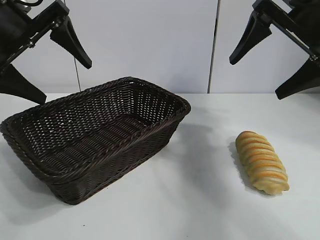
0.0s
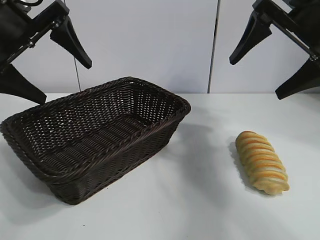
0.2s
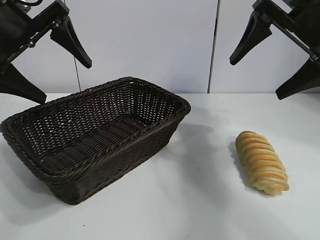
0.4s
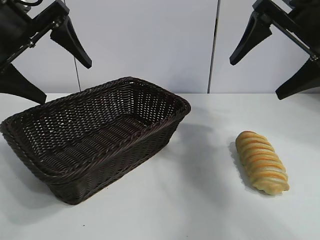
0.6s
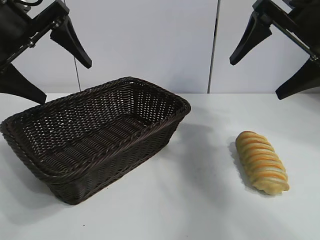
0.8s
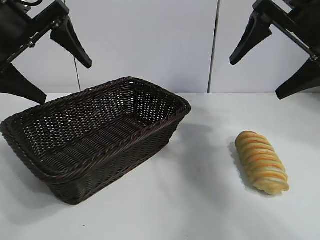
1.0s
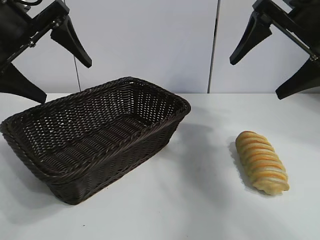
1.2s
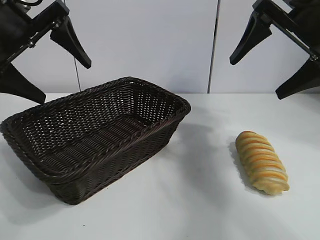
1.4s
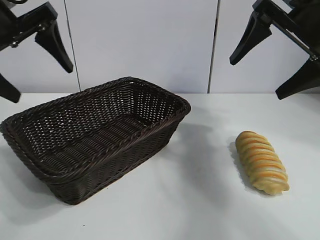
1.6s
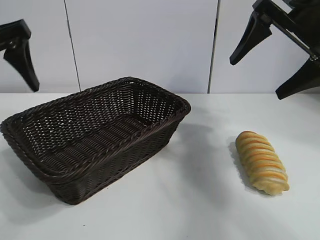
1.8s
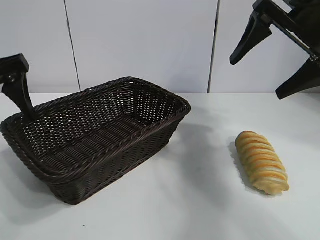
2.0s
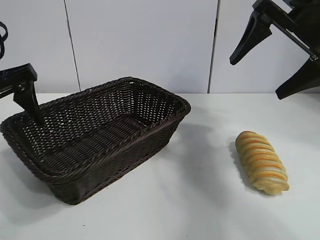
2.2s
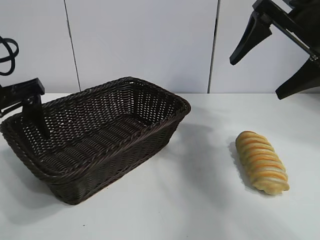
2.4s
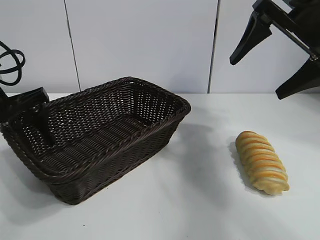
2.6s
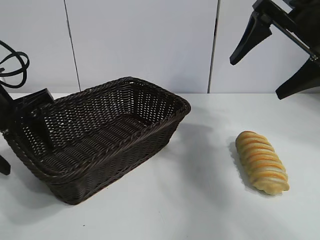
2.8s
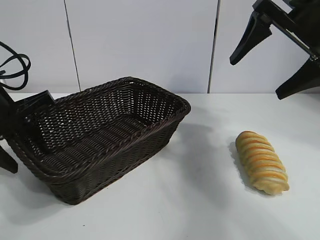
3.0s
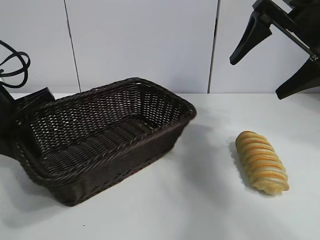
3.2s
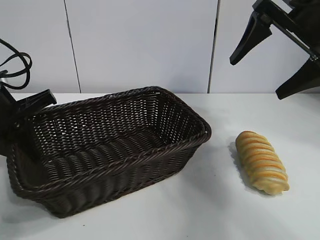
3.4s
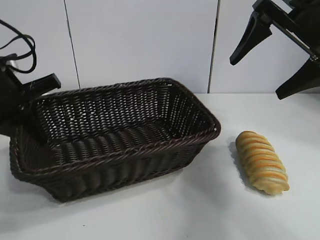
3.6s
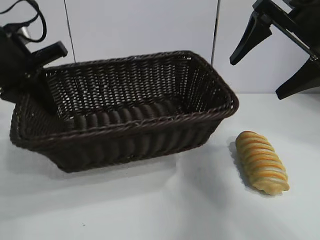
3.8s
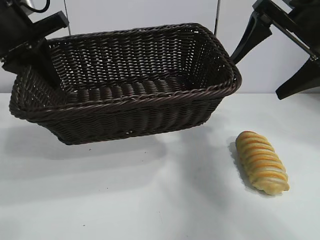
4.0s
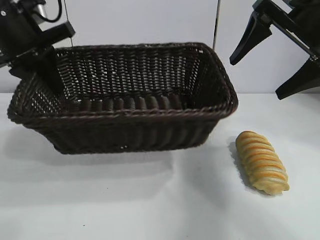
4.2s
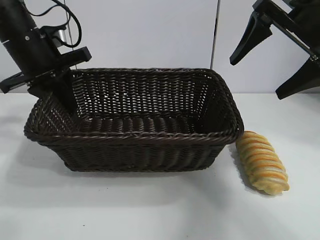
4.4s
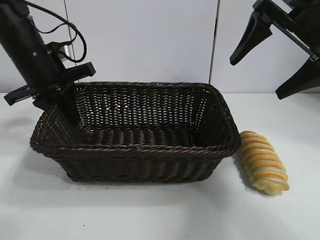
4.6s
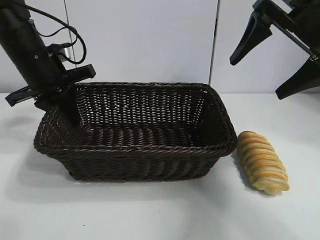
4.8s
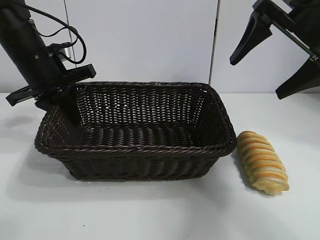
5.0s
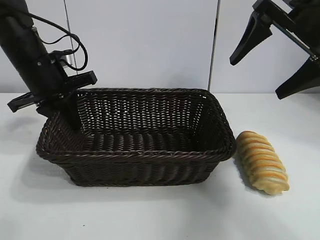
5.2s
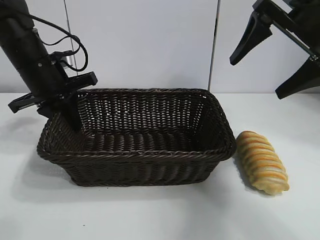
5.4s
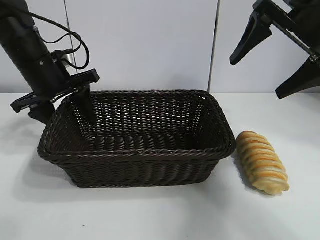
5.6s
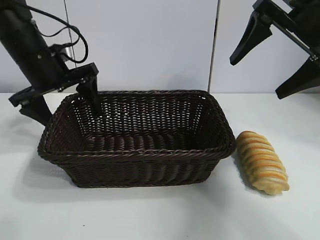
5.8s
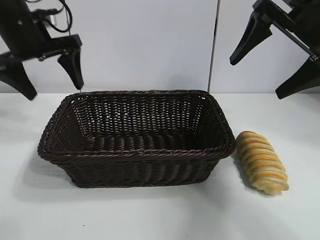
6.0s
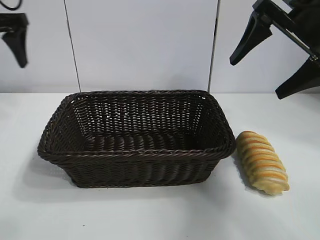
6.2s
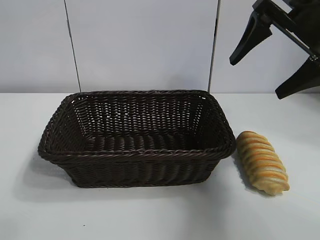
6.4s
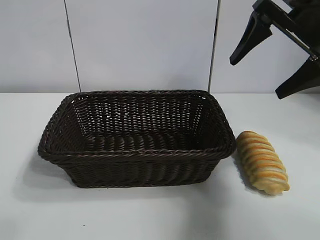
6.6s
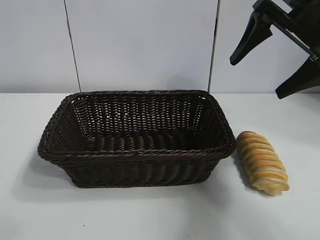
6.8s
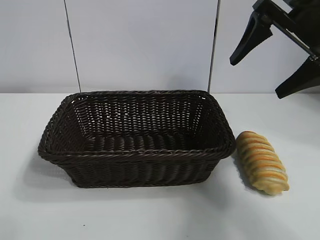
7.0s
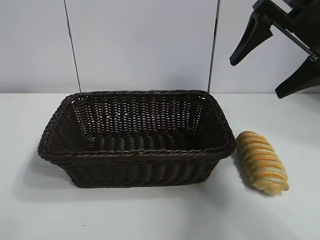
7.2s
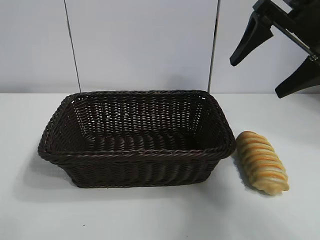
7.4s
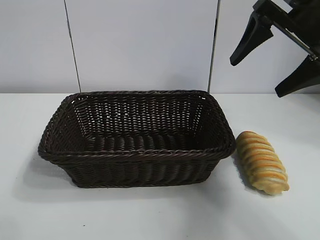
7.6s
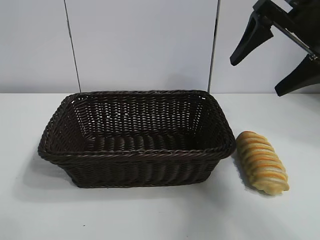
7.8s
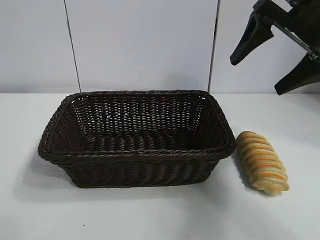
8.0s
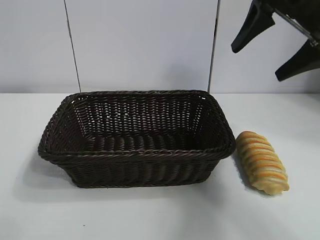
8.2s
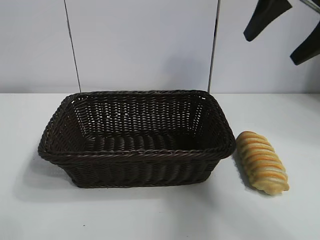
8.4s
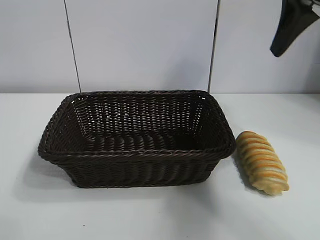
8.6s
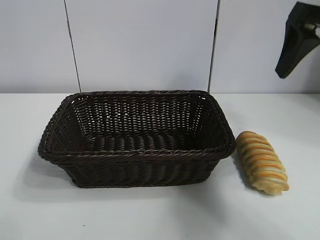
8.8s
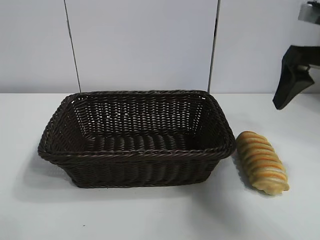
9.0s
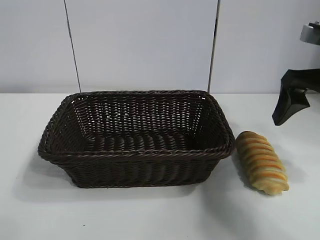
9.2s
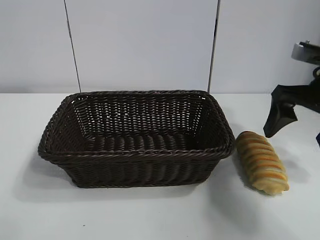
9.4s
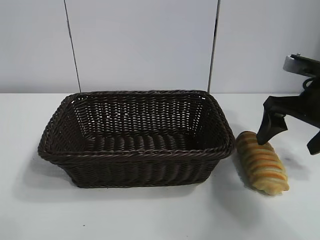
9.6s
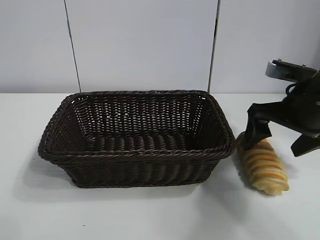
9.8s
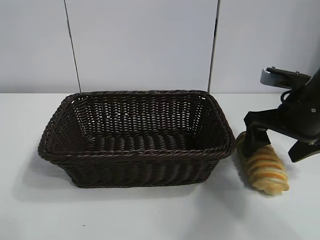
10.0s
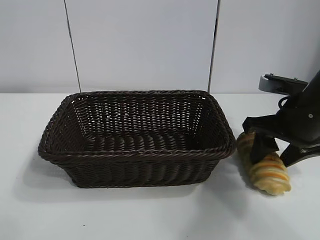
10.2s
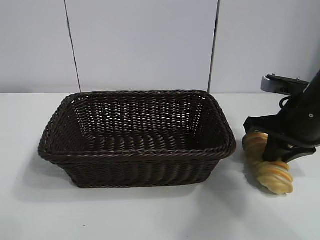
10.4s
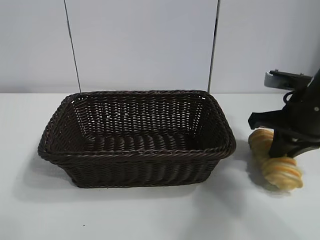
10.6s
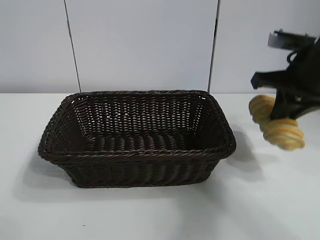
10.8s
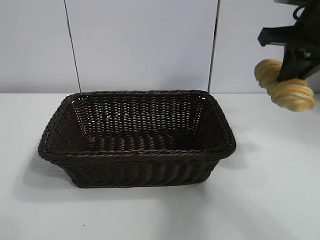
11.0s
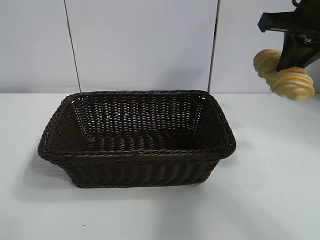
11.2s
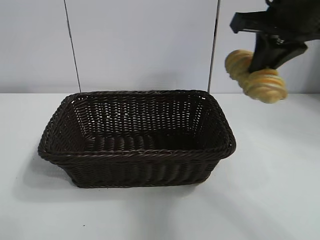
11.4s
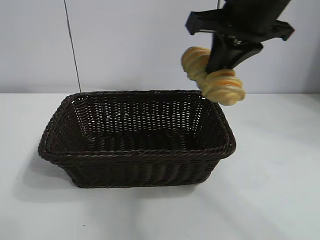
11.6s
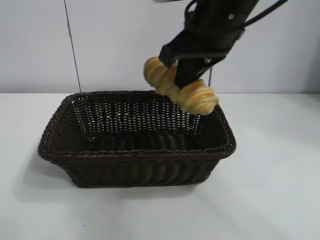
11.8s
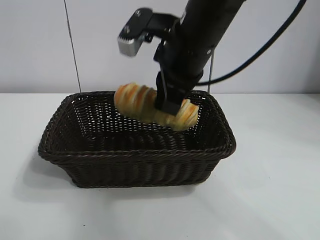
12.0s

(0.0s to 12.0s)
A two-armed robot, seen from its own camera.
Task of the whole recording: pick up the long bread and put it into the basket.
Step, 1.2s - 3.0s: Grasp the basket with the left gripper.
Step, 3.4s - 5.6s: Place the basket in the center of the table with the left gripper.
Step, 5.8s - 10.4s: Grasp the long bread with right gripper.
